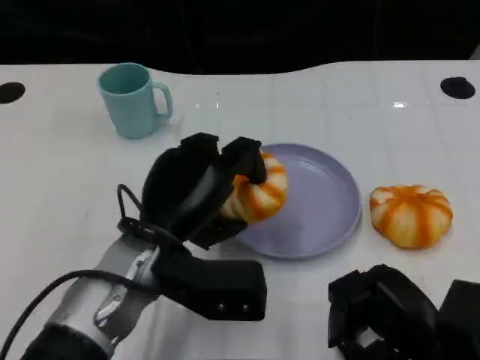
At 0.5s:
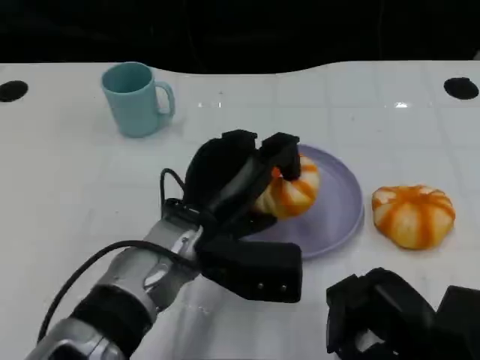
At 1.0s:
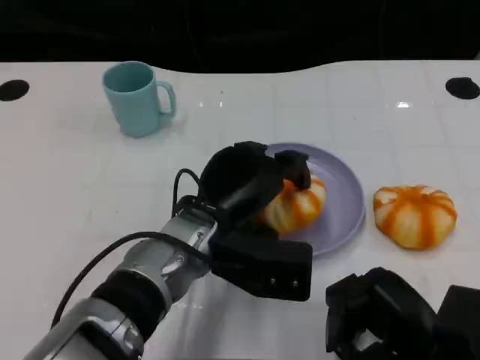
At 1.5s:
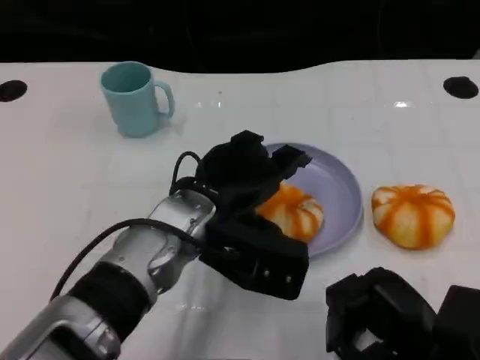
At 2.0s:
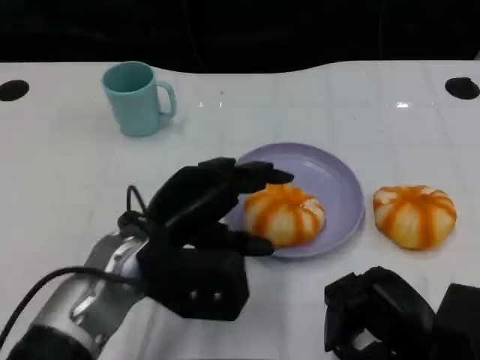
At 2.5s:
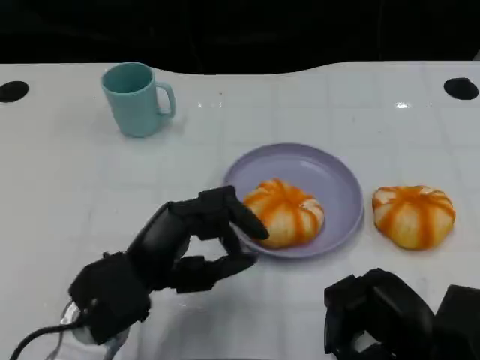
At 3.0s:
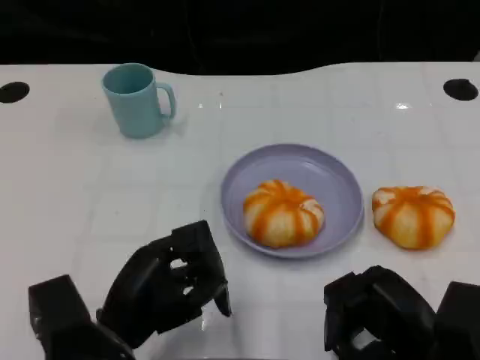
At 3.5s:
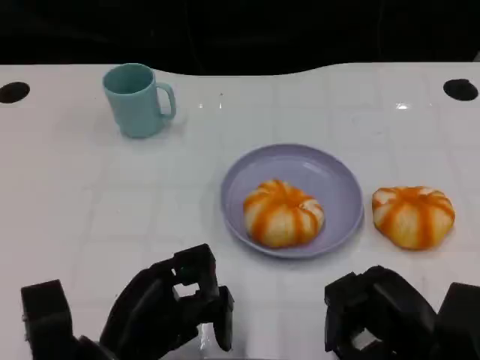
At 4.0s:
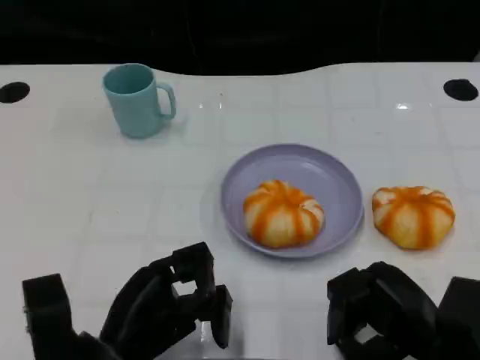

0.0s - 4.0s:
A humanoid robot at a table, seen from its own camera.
Task of the whole recording: Grasp the bread from the table and place it into the plate.
2.0s - 4.0s: The left hand heads backward and downward, covering about 10 cm.

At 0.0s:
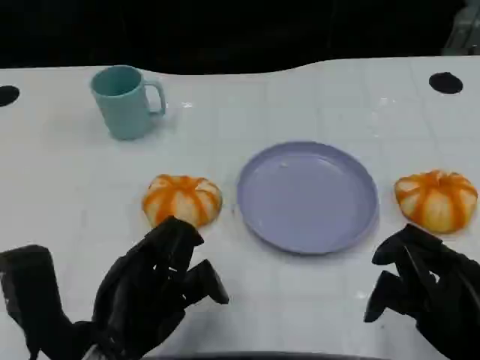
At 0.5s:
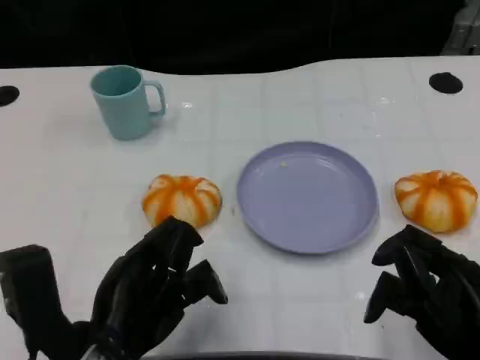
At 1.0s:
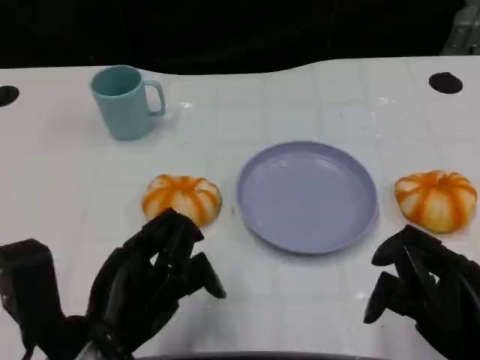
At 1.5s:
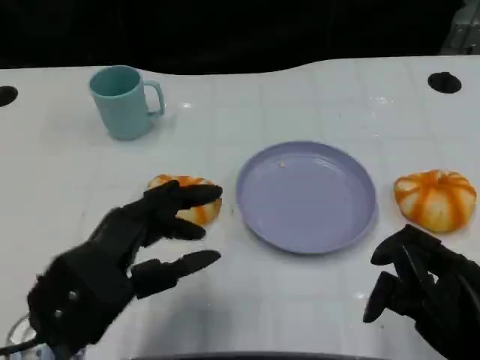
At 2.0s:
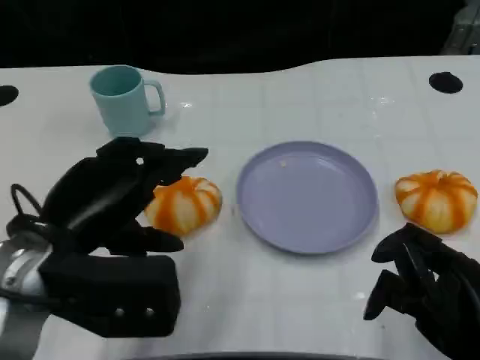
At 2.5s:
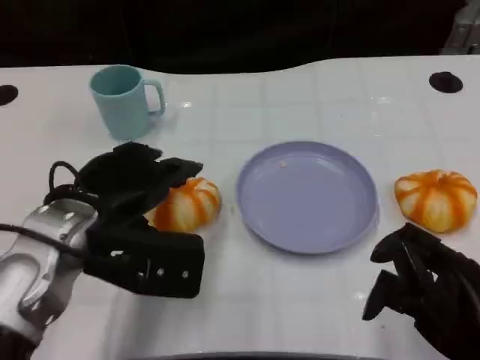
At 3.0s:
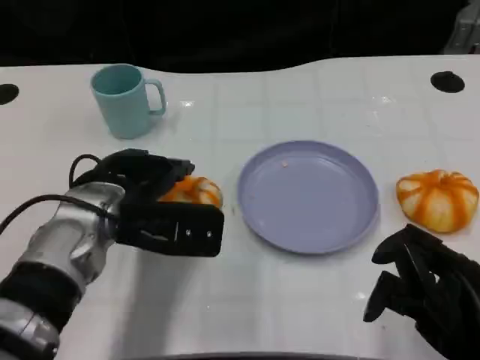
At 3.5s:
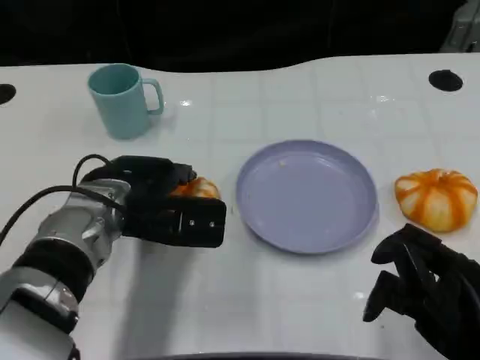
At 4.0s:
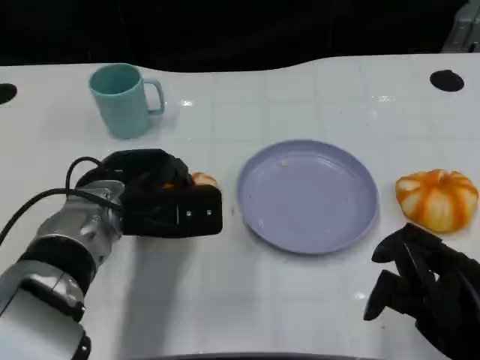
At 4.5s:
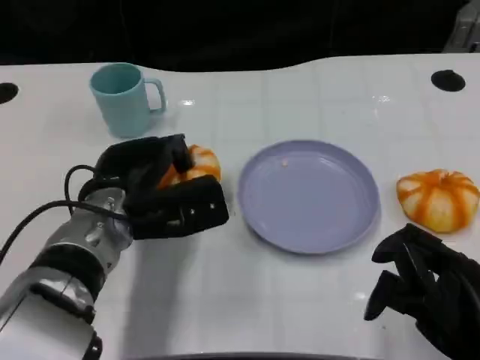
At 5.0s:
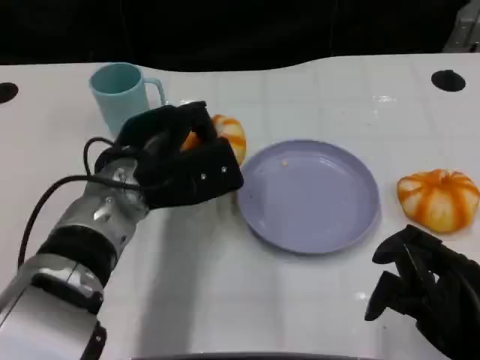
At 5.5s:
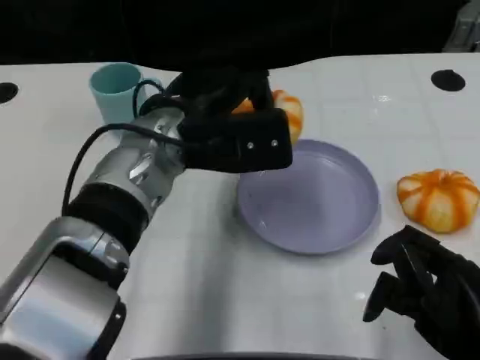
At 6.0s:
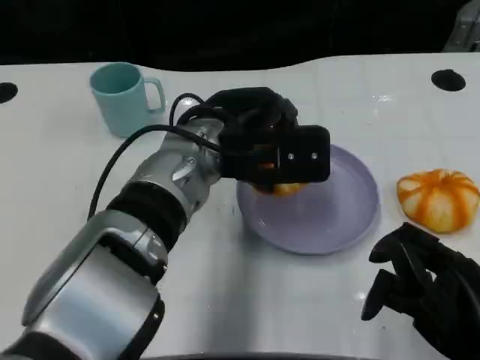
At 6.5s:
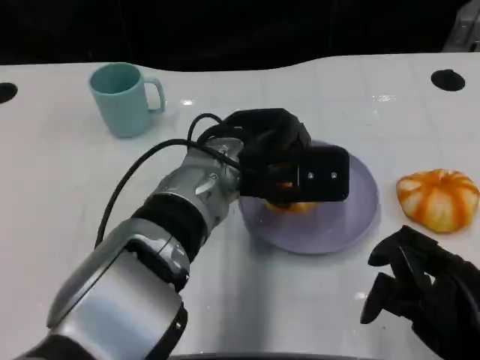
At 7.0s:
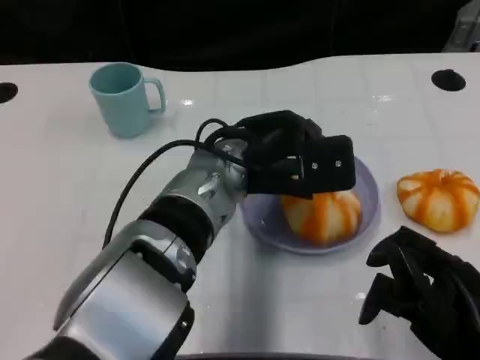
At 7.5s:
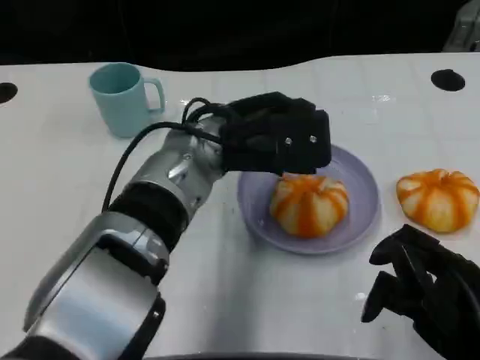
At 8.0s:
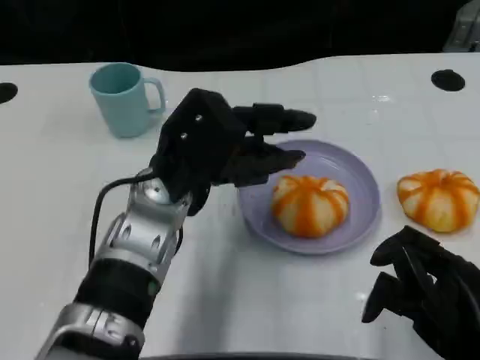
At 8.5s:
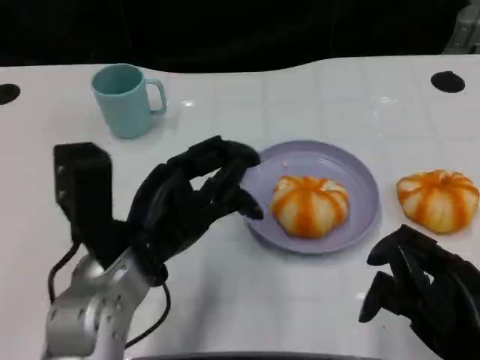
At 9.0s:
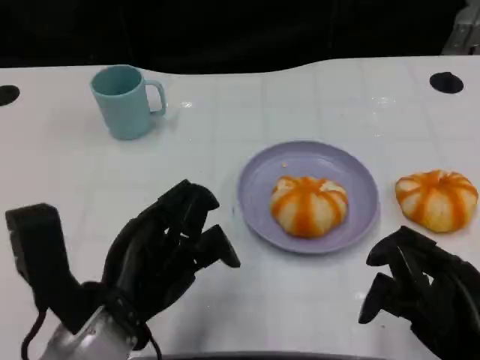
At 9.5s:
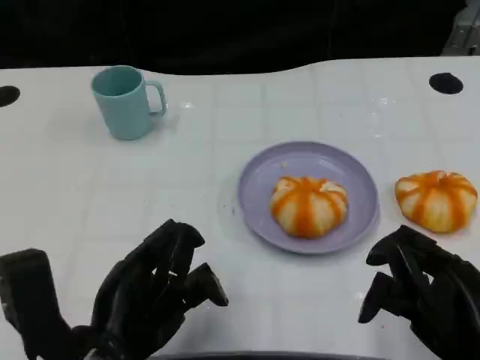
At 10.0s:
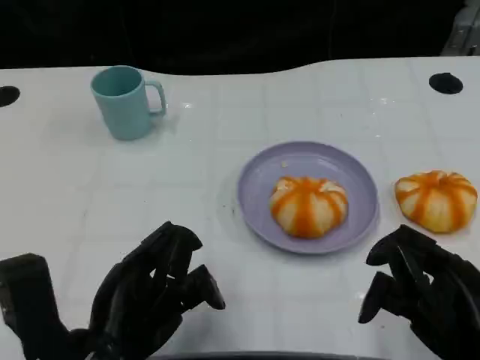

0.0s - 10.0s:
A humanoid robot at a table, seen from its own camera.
Task of the whole recording: Grasp the bread from the table and place it into the plate.
0.0s - 2.0s: The left hand is displaced upward and forward by roughly 10 cm.
2.0s - 4.0s: The left hand goes roughly 10 cm forward and downward.
4.0s - 6.0s: The left hand shifts roughly 10 cm to the right and upward.
6.0s - 8.0s: The left hand shifts by some 5 cm.
8.0s - 10.0s: The left hand heads backward and to the left, covering some 15 cm.

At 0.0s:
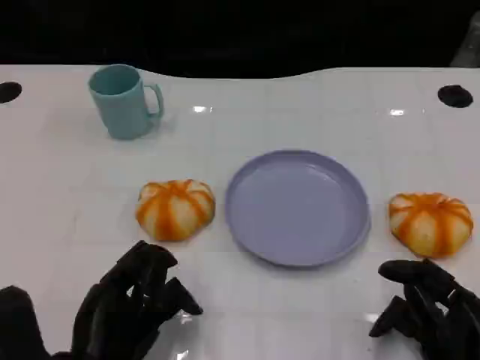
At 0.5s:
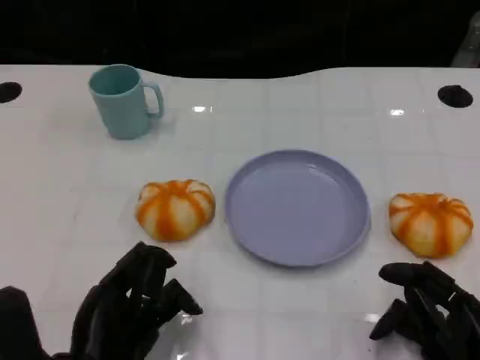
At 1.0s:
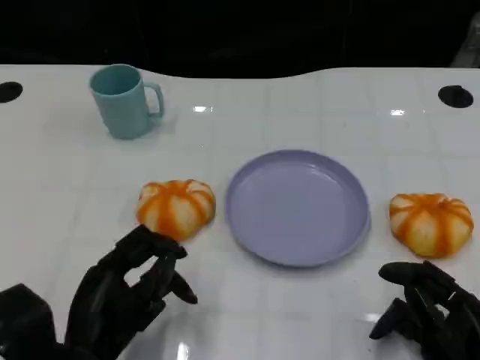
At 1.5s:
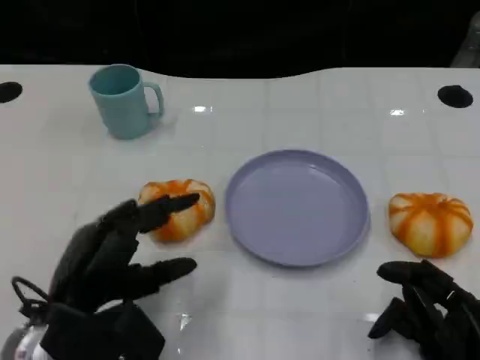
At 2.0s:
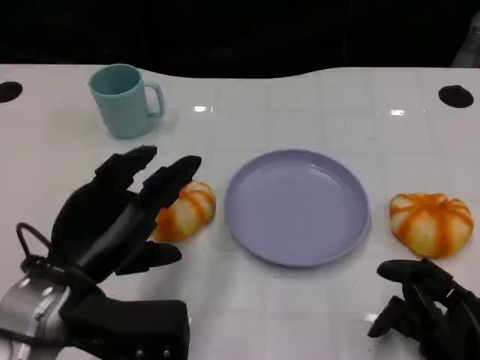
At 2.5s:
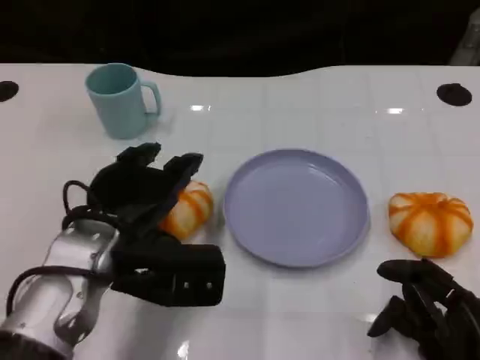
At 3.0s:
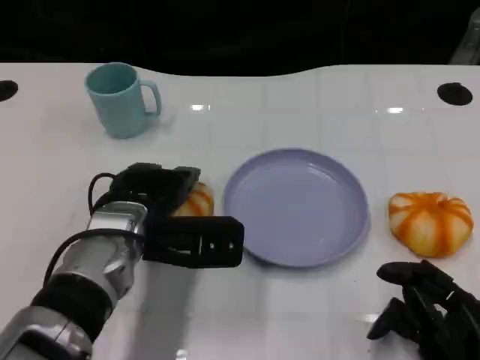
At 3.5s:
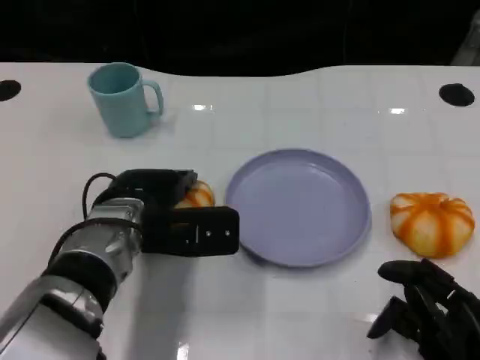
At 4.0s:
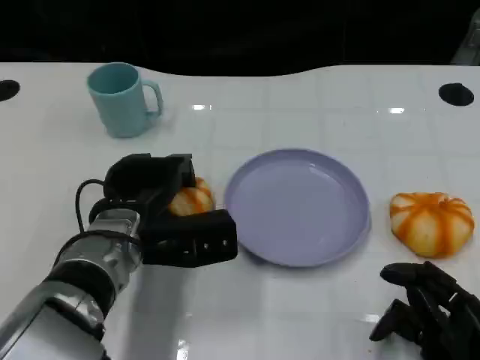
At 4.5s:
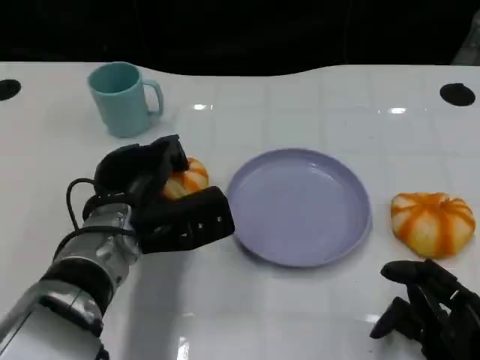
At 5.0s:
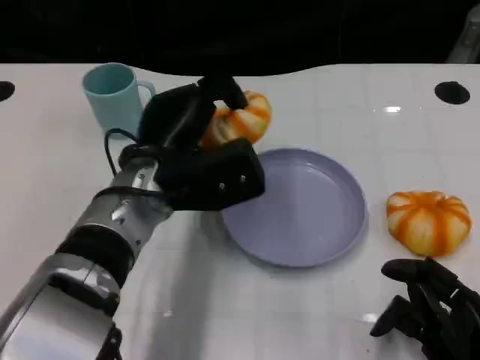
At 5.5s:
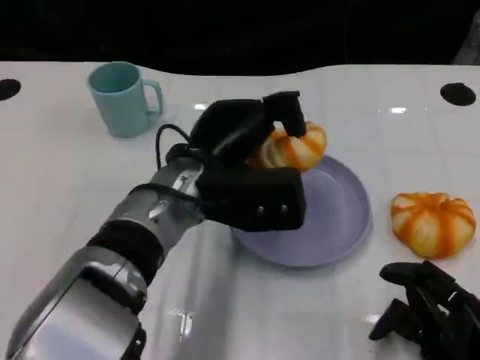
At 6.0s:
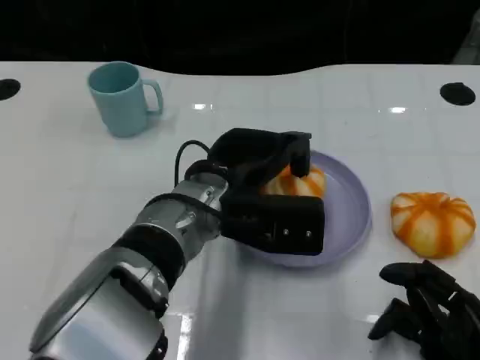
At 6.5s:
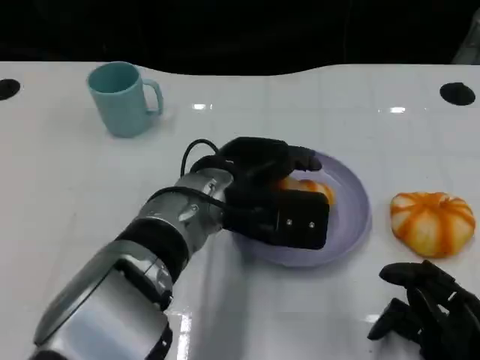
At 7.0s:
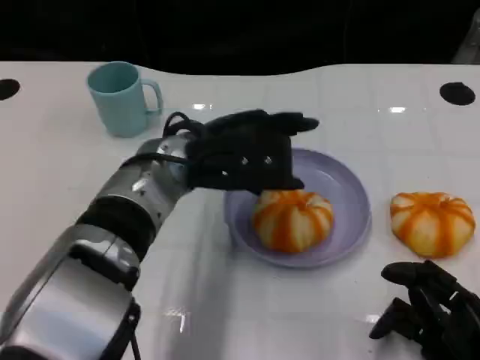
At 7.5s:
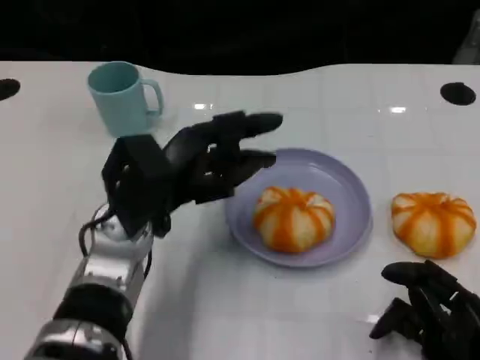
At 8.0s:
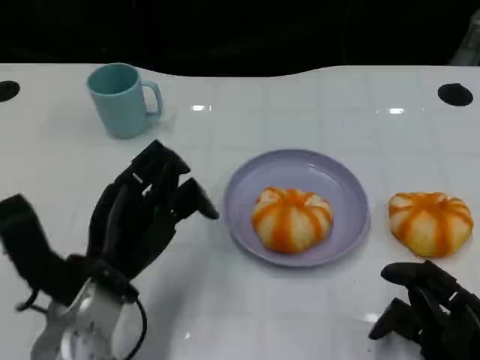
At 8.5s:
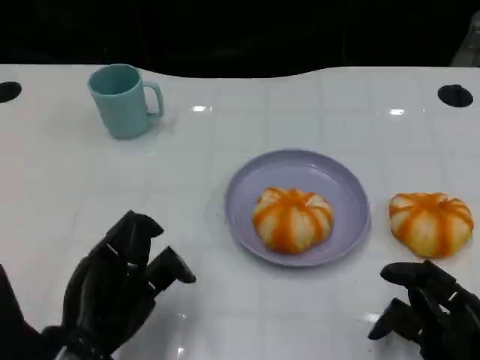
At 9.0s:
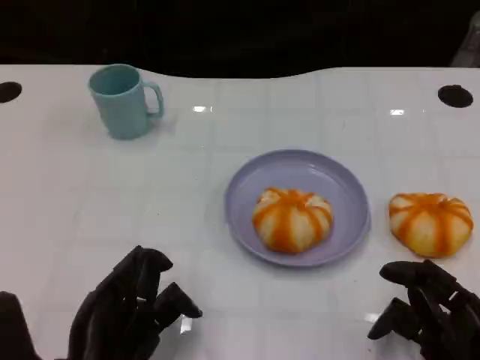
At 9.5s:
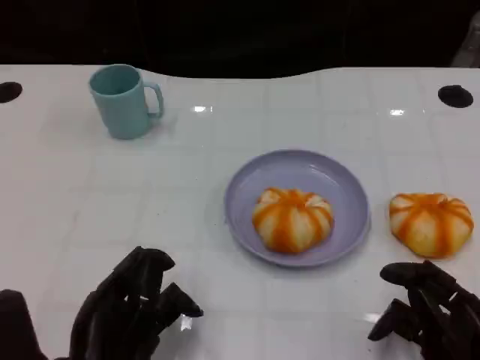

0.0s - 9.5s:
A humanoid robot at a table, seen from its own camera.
Task of the whole recording: Grasp the bread from the table and place it into the plate.
0.0s - 2.0s: The left hand shifts roughly 10 cm upward and forward.
2.0s - 4.0s: The left hand is displaced forward, to the right and downward by approximately 10 cm.
4.0s - 5.5s: The left hand goes about 10 cm to the right and upward.
5.5s - 7.5s: The left hand is displaced to the left by about 5 cm.
7.5s - 9.5s: The left hand shifts roughly 15 cm backward.

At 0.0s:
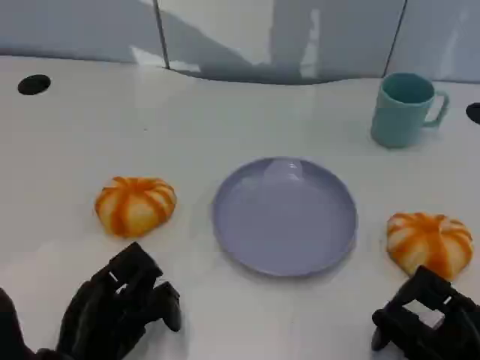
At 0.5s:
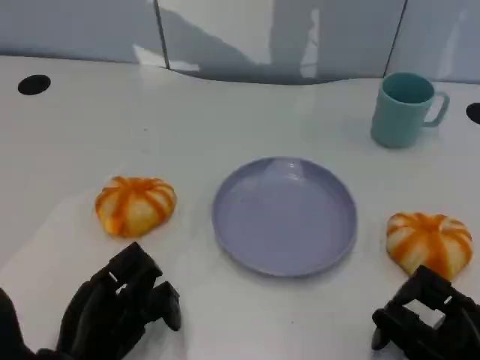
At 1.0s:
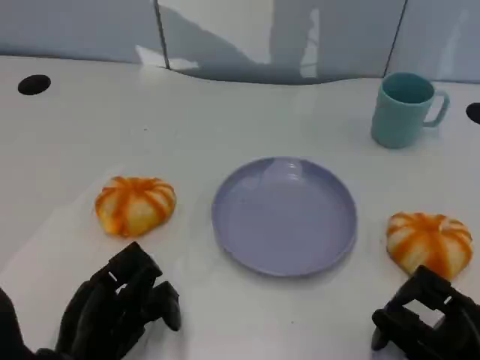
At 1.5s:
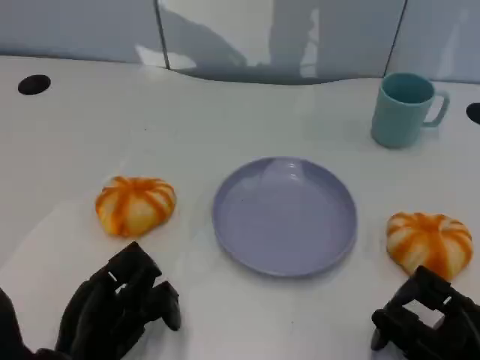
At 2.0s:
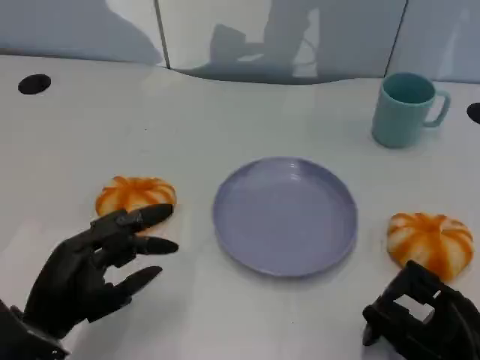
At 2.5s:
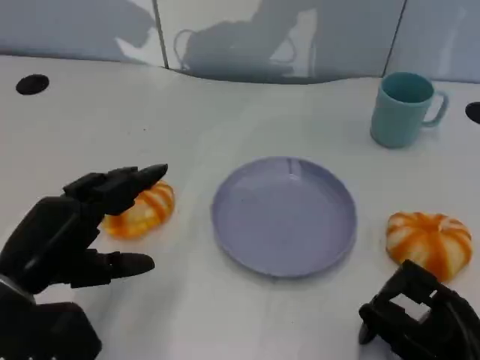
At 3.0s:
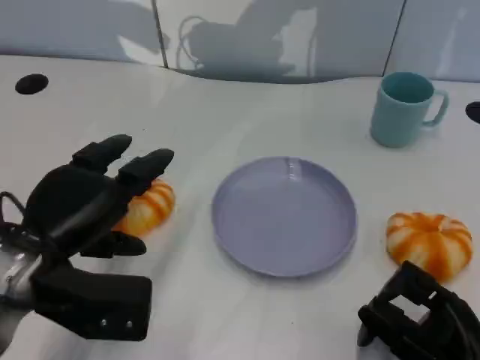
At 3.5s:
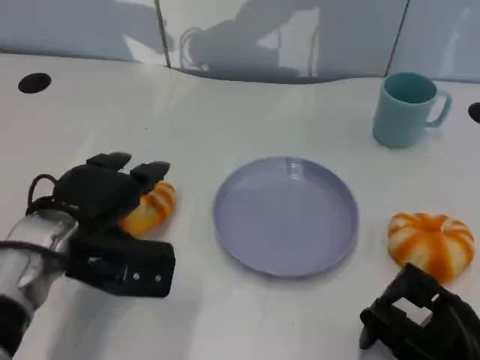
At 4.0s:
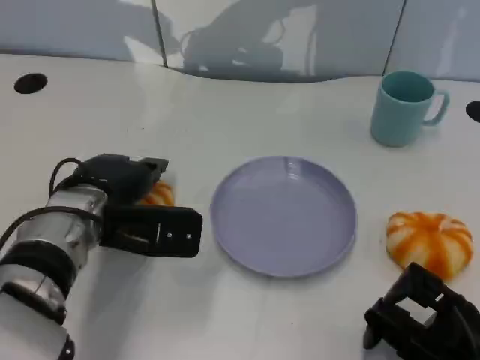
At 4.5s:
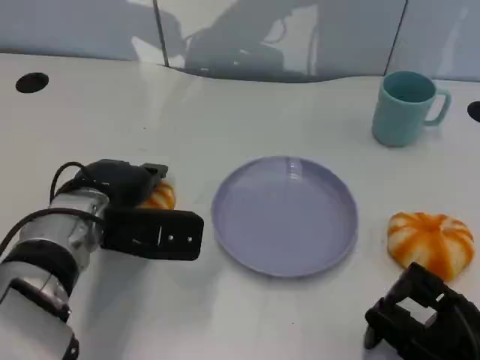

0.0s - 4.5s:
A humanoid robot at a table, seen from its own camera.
Task of the whole recording: Grasp the bread from the table and place it into the plate.
2.0s - 4.5s: The left hand travels forward and to the right by about 15 cm.
